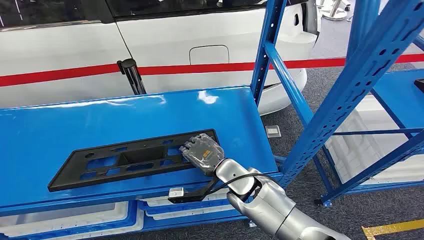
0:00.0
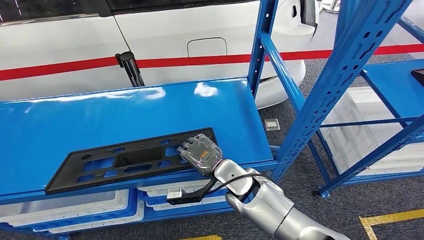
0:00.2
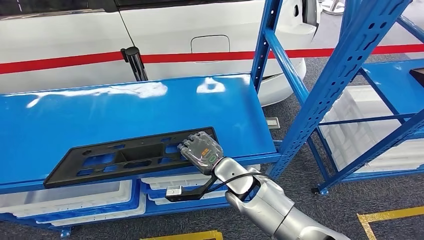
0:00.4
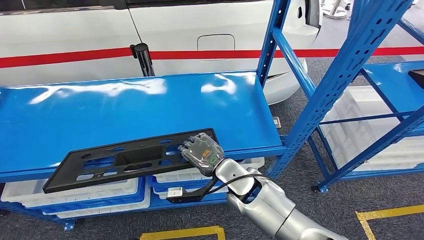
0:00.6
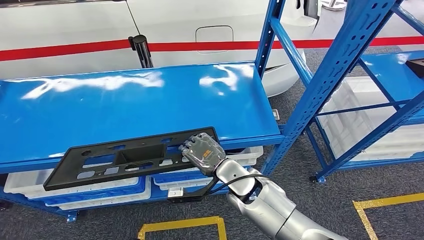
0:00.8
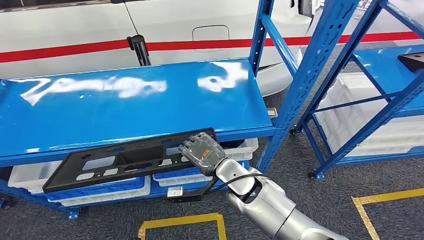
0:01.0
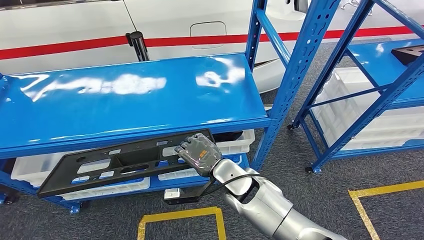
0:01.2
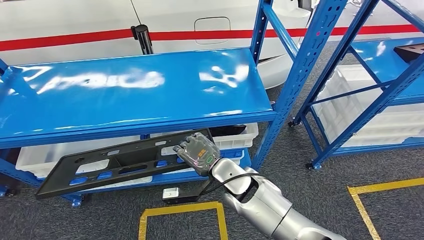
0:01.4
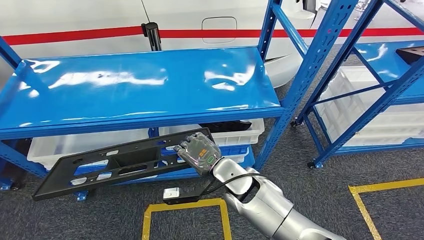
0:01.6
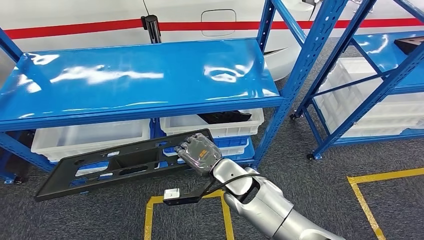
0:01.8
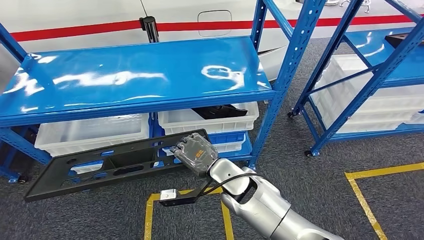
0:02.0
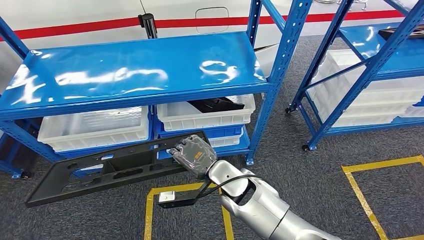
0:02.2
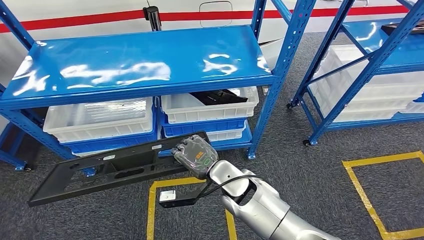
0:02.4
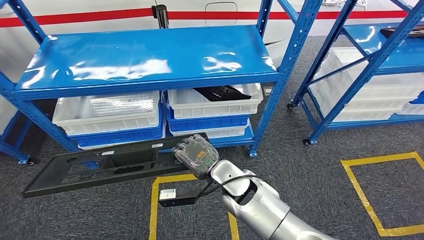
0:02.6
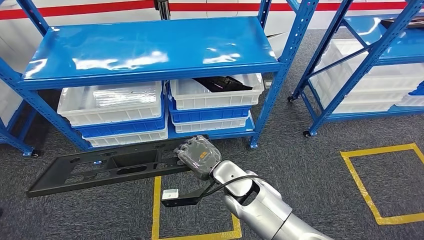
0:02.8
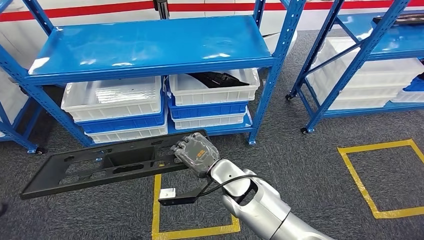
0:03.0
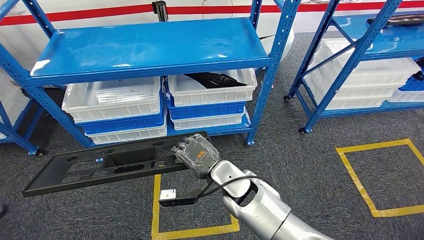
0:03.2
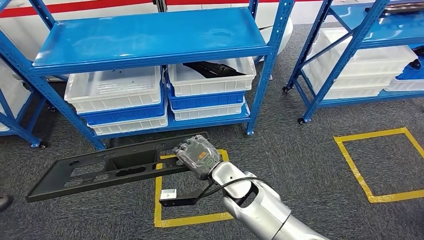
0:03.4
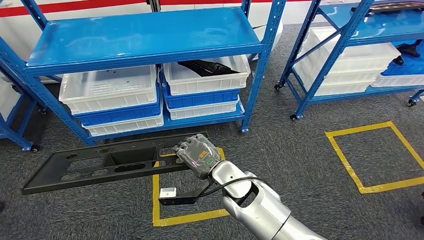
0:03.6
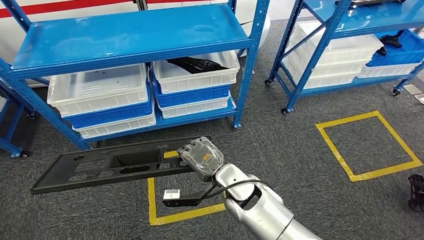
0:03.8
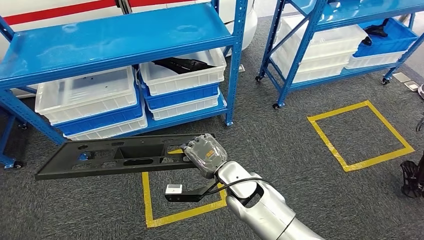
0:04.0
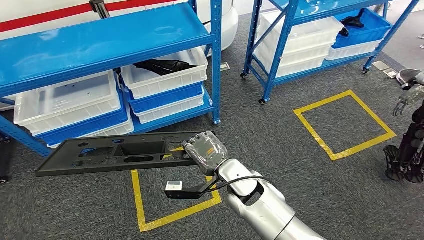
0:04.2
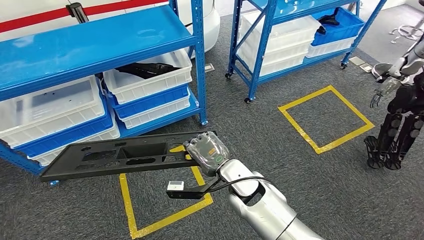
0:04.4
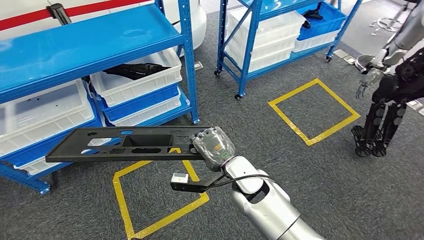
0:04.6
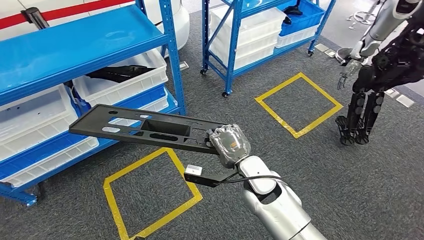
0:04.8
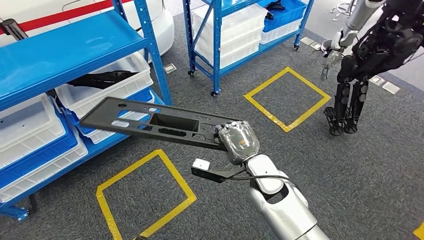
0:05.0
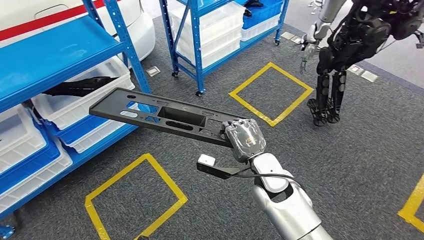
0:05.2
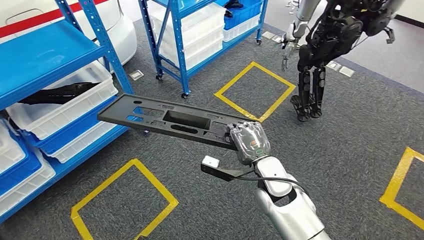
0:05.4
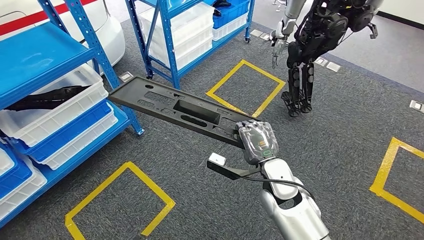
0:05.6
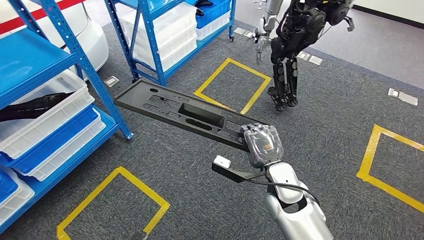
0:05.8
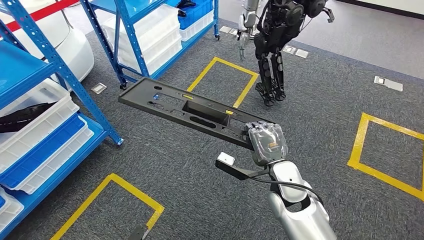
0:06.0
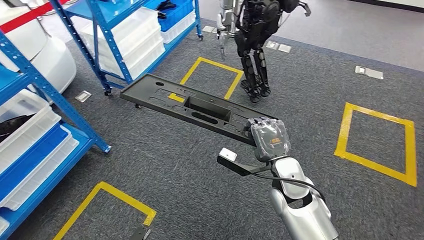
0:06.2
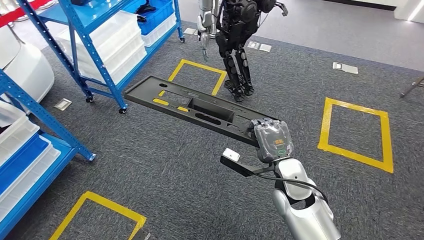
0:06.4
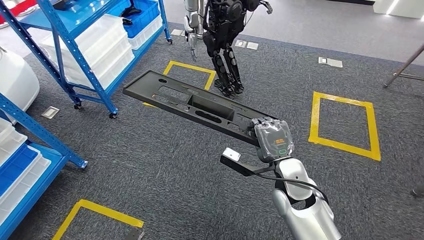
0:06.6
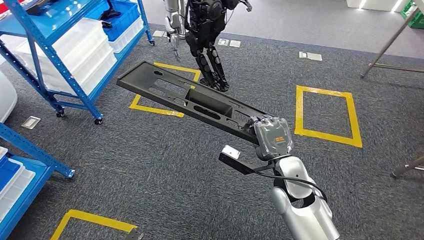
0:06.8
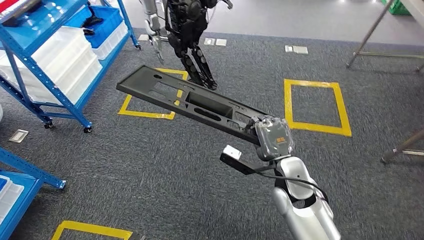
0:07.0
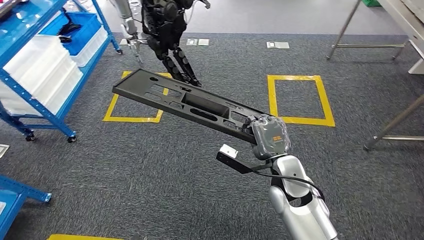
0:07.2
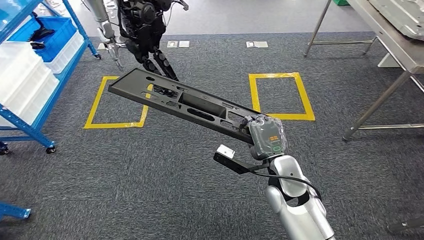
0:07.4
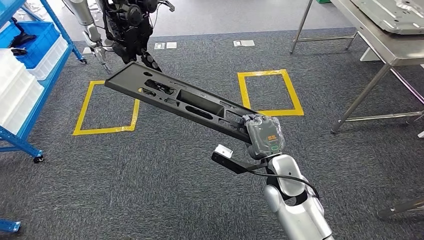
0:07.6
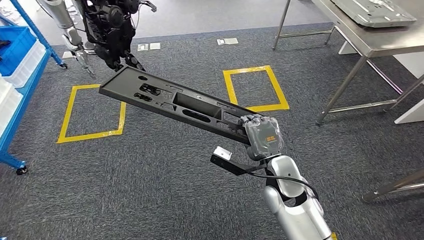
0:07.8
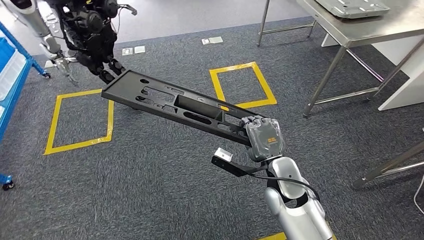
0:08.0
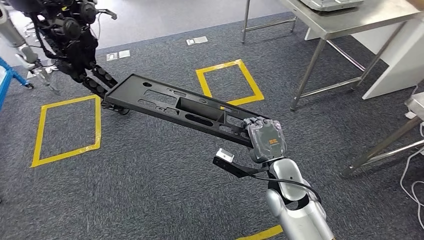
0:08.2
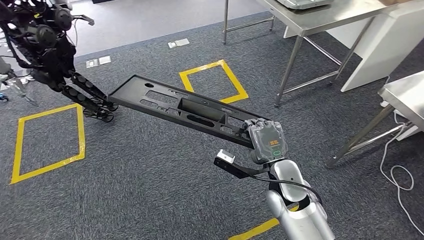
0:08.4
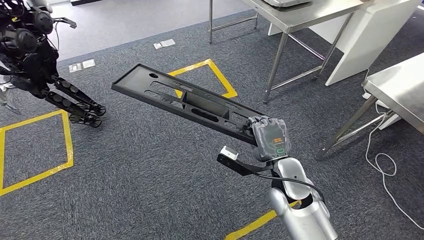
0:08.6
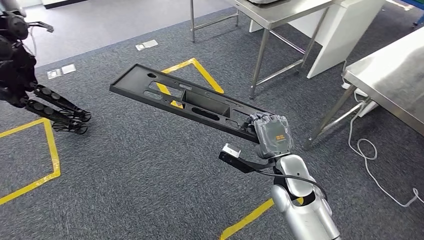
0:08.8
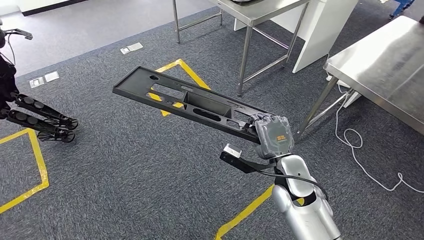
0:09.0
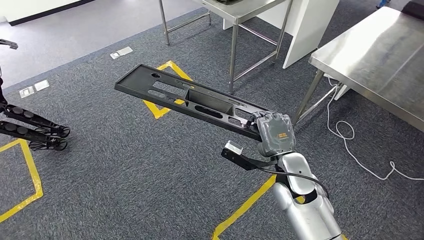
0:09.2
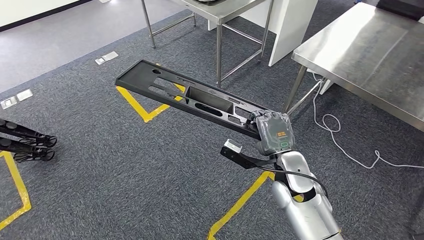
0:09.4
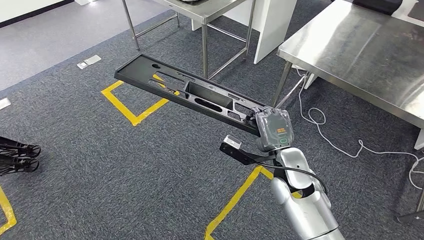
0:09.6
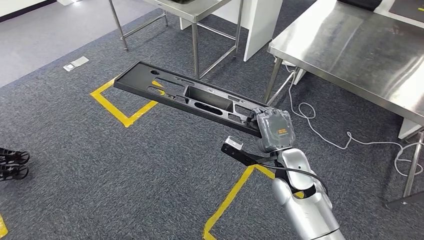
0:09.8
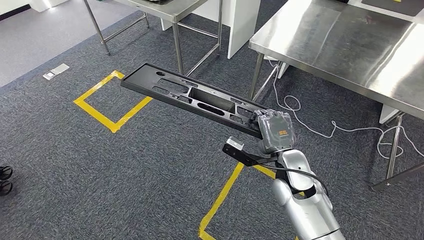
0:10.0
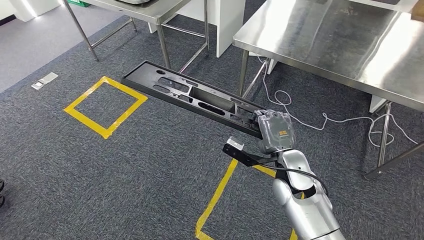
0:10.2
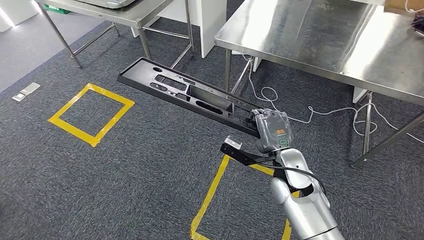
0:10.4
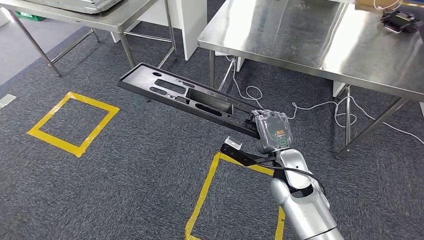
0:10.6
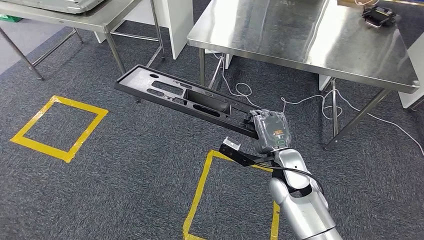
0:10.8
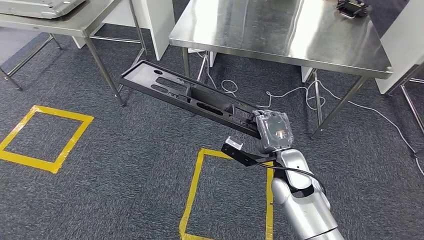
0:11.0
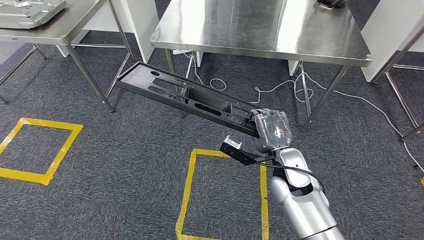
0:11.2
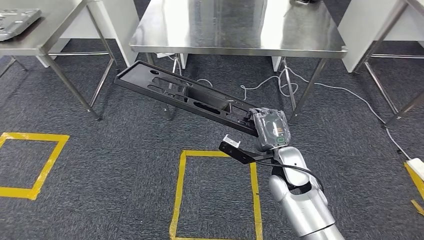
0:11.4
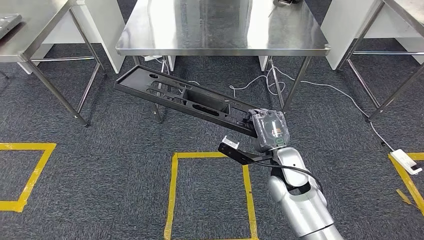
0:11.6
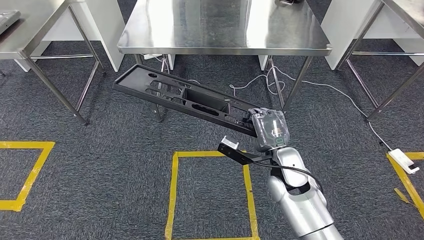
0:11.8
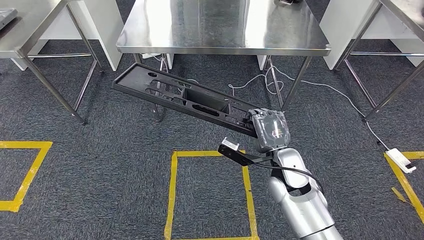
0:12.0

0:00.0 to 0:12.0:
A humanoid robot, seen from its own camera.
Step, 0:00.0 to 0:04.8: Pick up the large material from the shelf.

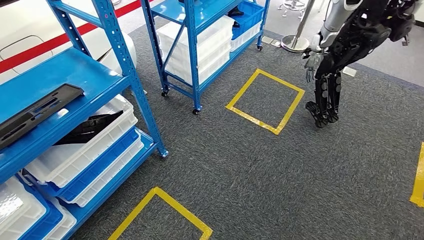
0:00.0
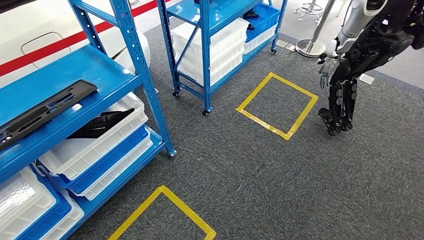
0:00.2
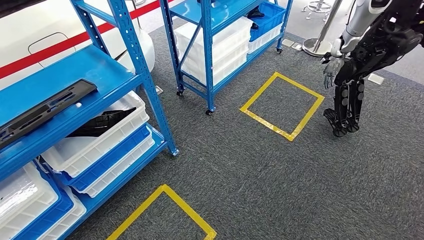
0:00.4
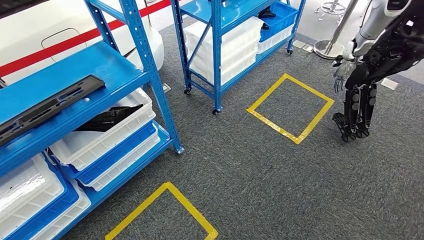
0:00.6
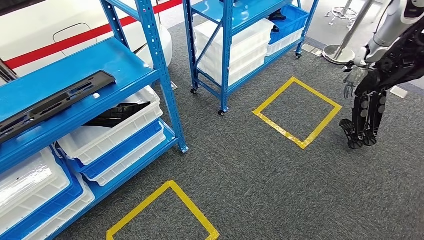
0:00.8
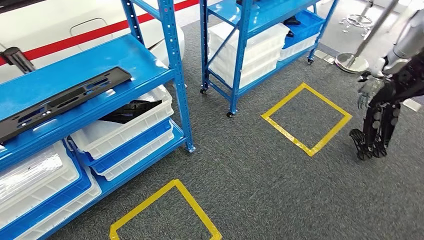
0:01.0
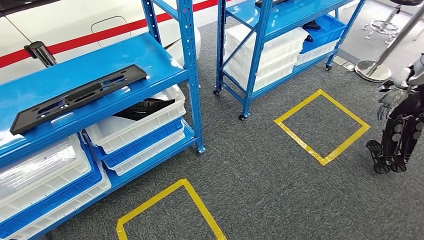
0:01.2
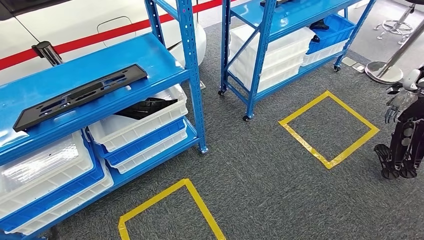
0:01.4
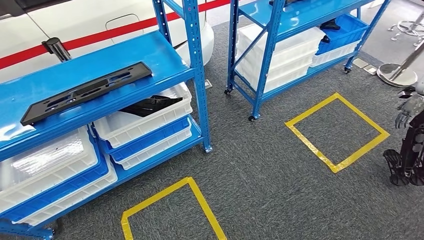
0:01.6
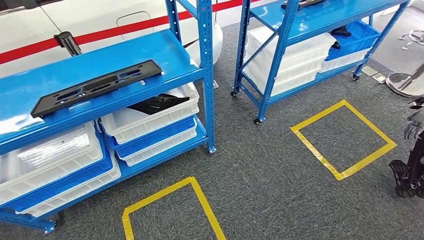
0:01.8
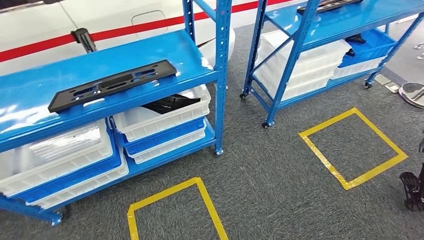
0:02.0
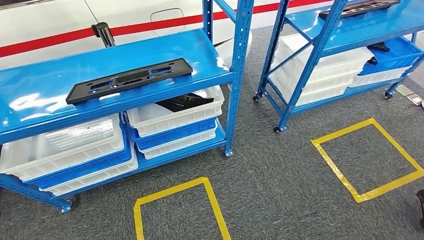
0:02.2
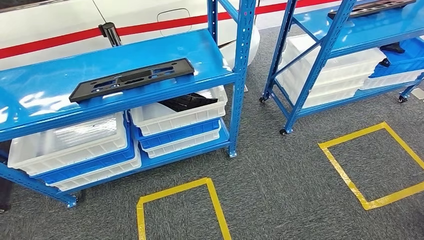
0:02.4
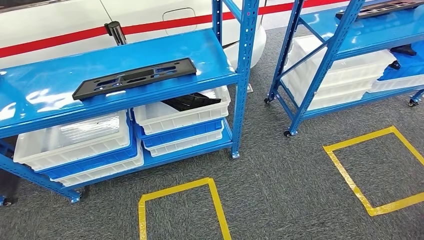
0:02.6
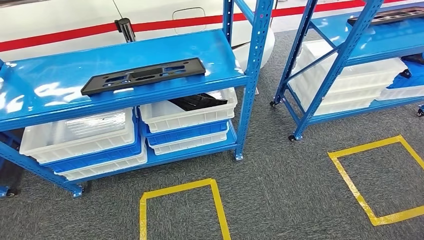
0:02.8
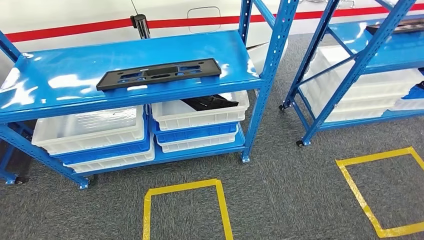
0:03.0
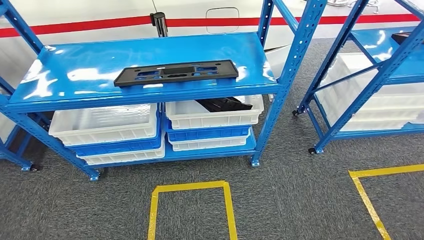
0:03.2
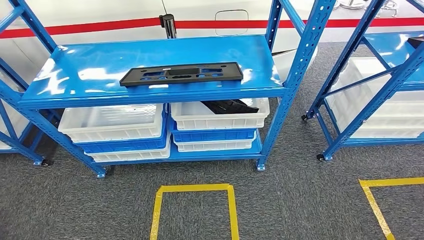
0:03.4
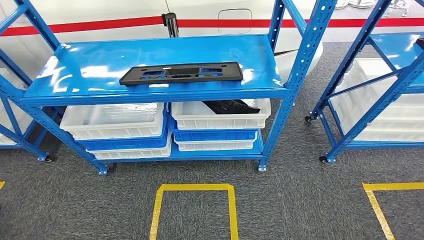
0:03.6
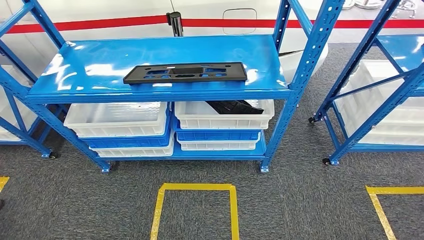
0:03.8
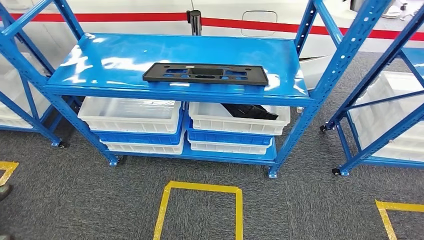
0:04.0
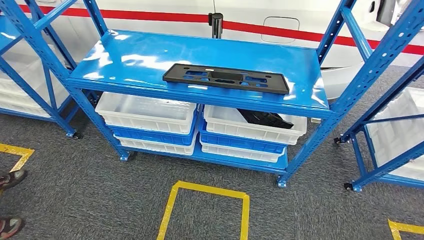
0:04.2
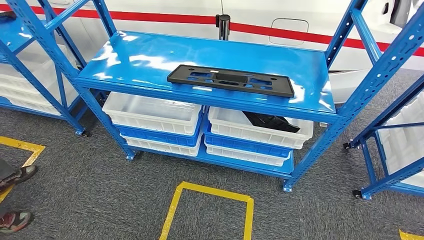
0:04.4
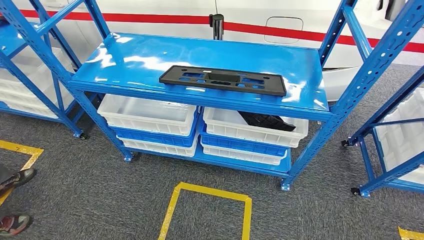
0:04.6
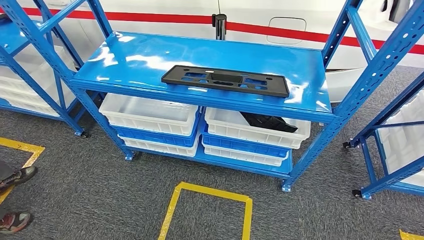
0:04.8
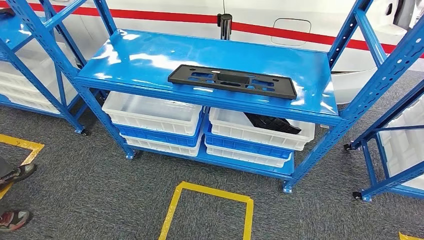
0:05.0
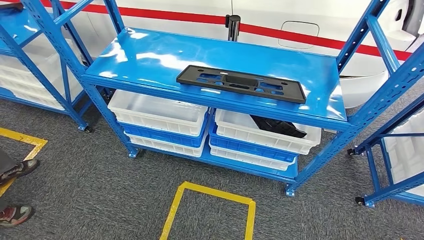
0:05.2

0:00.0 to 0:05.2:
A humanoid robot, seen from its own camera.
Step, 0:00.0 to 0:05.2: Move to the initial position of the shelf.
